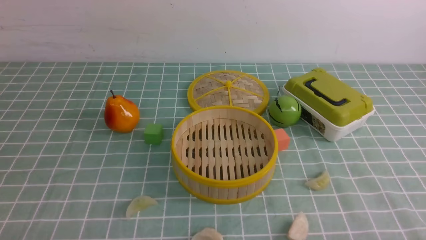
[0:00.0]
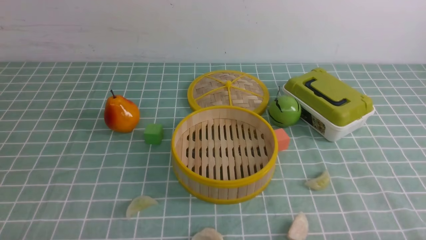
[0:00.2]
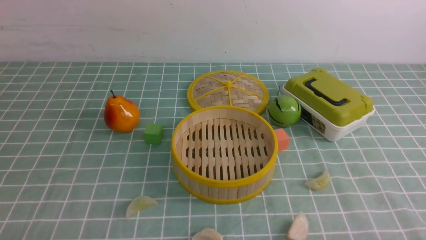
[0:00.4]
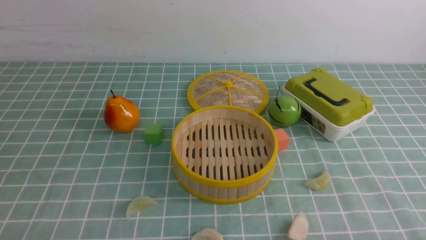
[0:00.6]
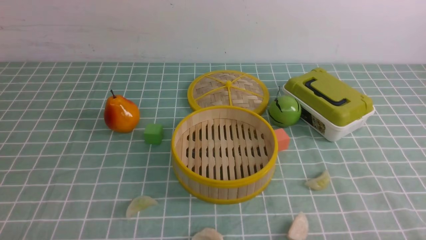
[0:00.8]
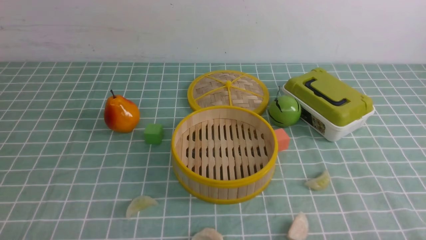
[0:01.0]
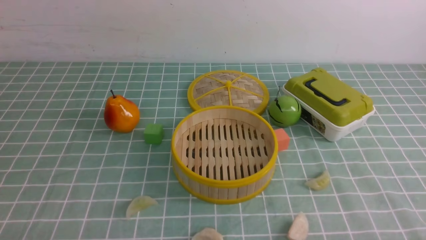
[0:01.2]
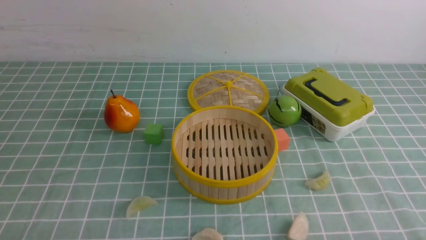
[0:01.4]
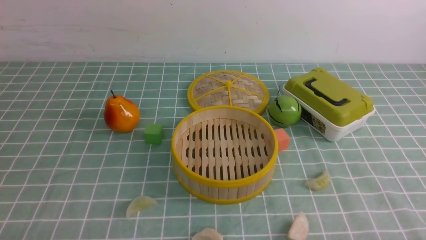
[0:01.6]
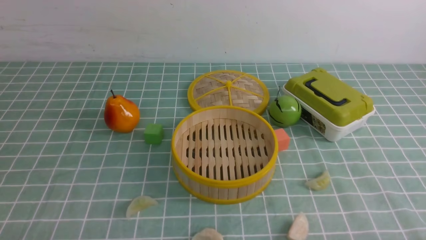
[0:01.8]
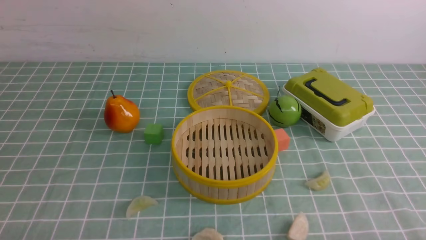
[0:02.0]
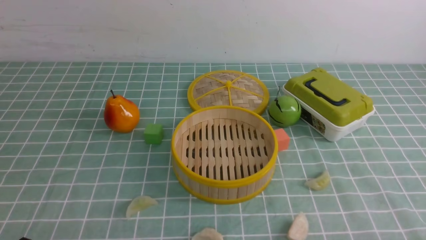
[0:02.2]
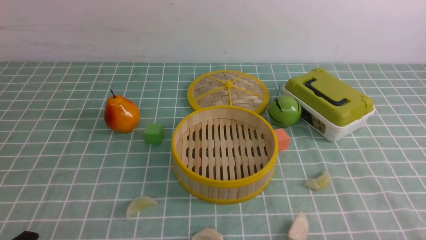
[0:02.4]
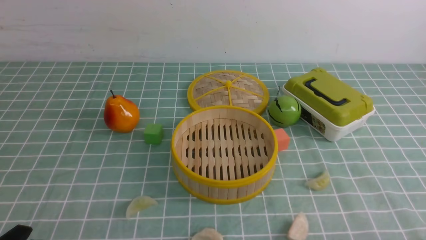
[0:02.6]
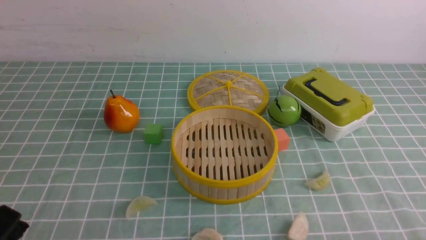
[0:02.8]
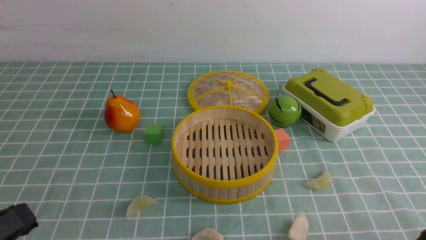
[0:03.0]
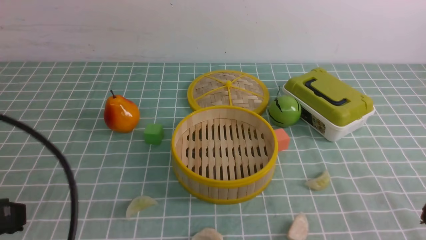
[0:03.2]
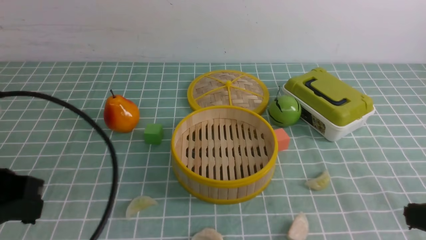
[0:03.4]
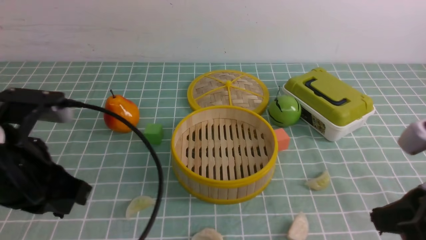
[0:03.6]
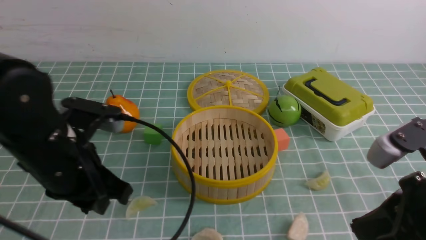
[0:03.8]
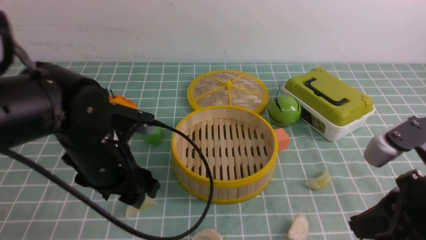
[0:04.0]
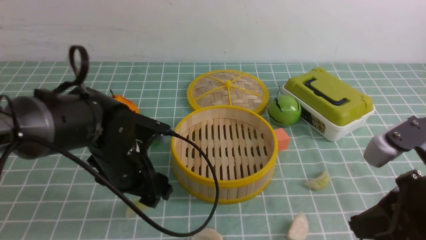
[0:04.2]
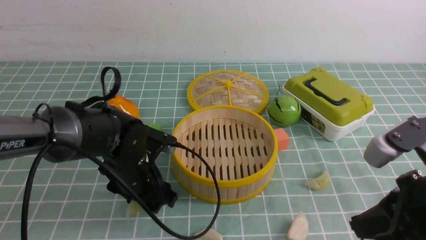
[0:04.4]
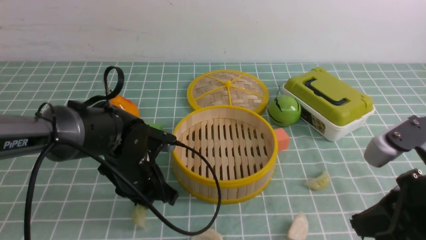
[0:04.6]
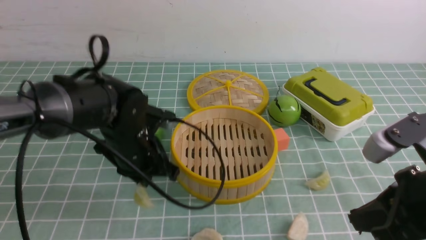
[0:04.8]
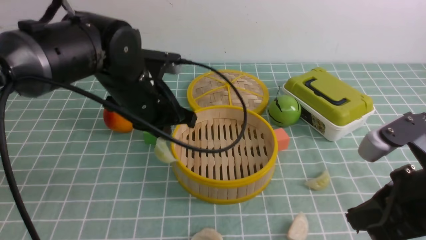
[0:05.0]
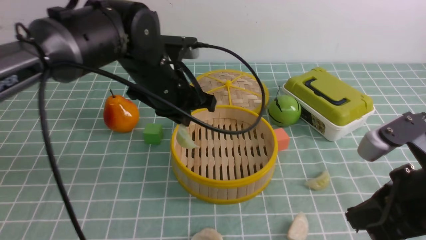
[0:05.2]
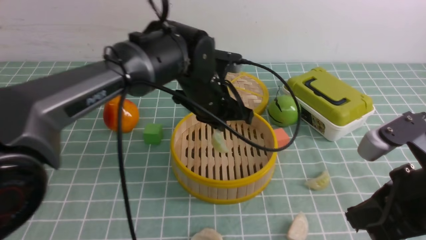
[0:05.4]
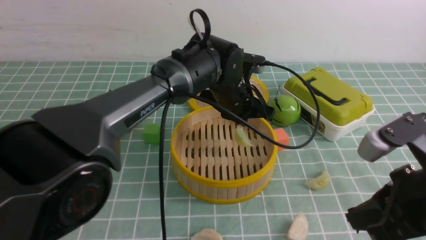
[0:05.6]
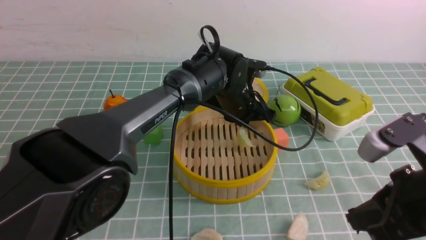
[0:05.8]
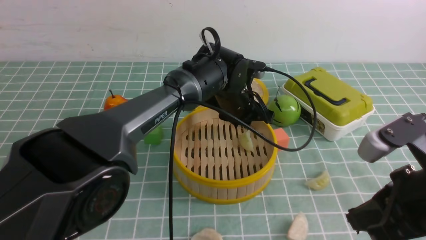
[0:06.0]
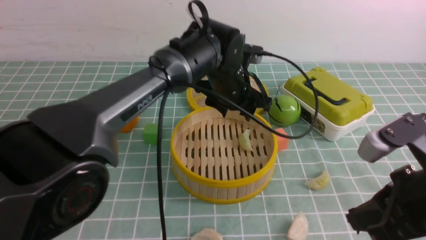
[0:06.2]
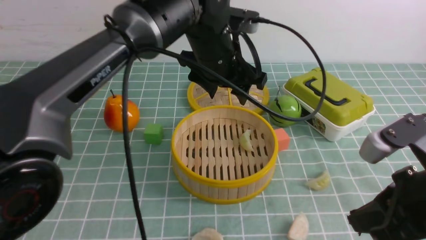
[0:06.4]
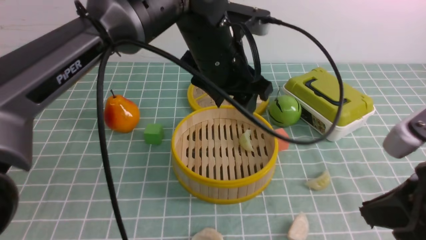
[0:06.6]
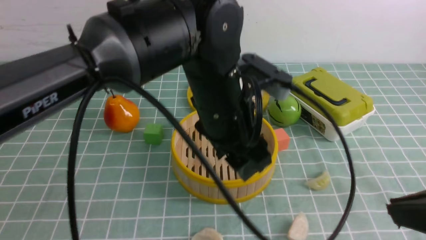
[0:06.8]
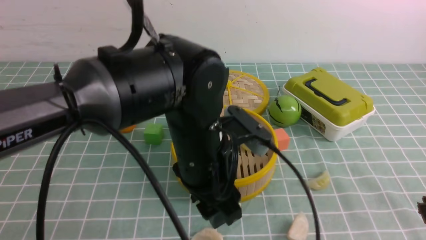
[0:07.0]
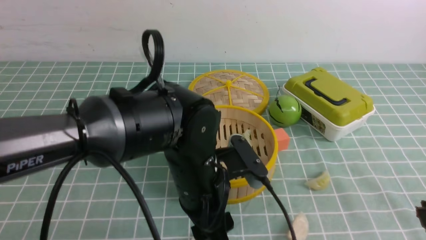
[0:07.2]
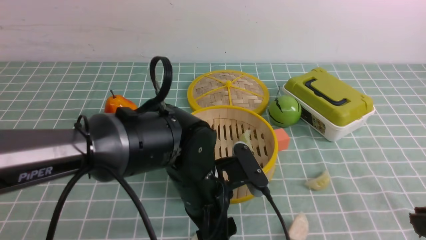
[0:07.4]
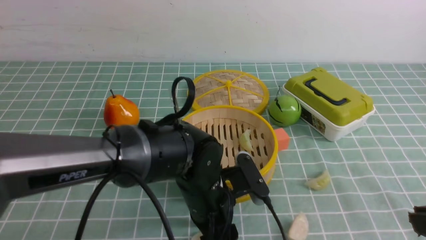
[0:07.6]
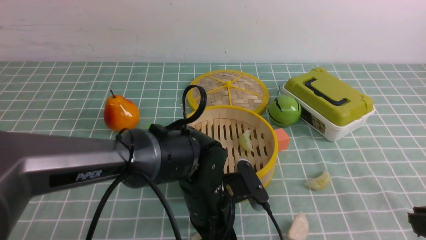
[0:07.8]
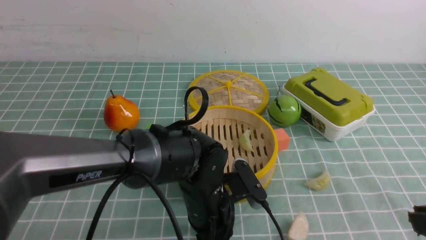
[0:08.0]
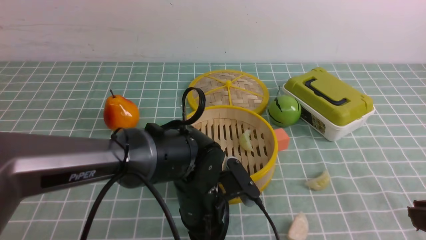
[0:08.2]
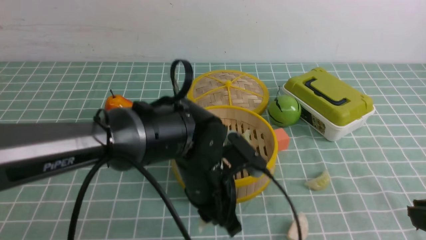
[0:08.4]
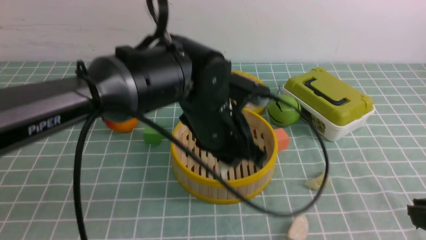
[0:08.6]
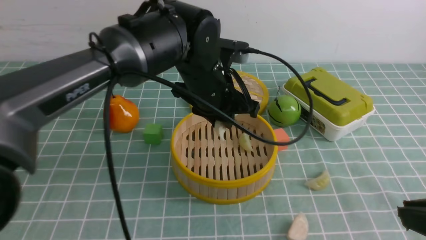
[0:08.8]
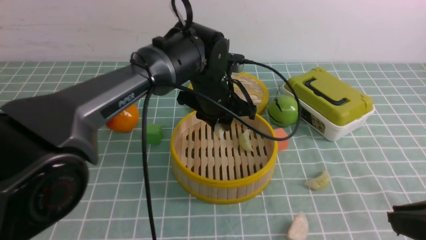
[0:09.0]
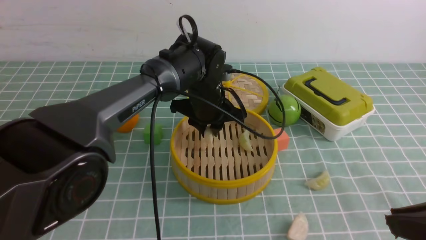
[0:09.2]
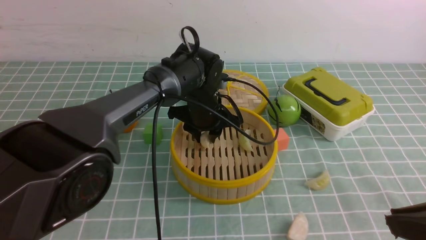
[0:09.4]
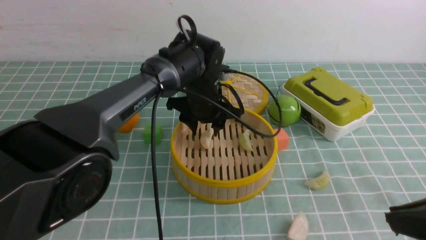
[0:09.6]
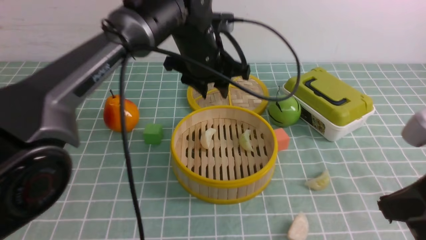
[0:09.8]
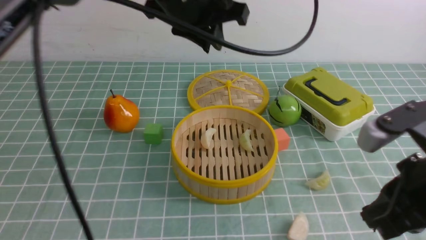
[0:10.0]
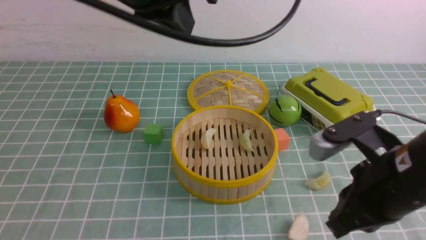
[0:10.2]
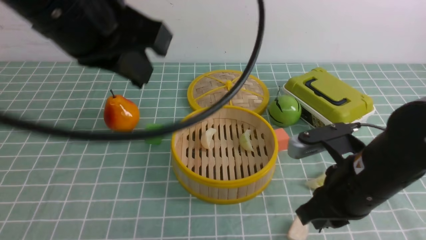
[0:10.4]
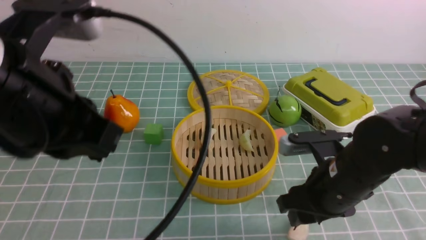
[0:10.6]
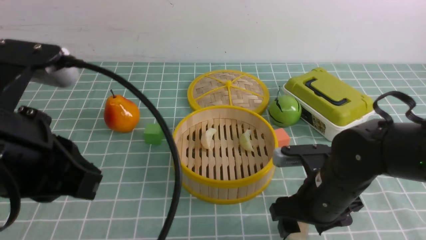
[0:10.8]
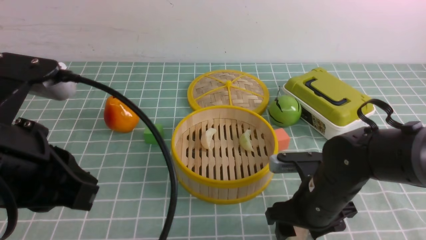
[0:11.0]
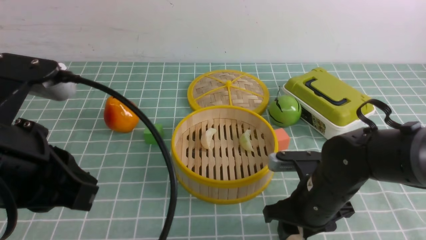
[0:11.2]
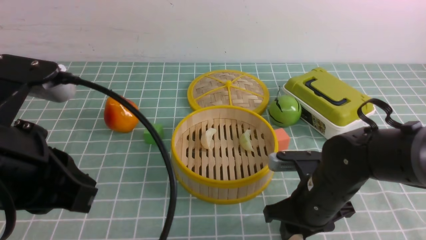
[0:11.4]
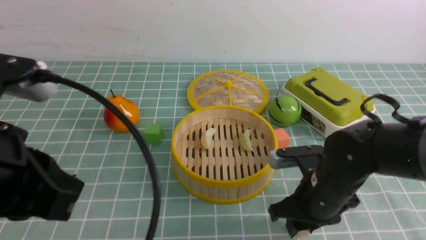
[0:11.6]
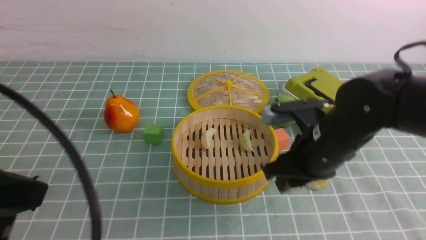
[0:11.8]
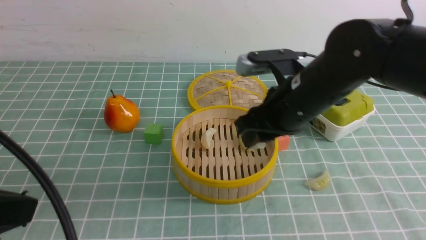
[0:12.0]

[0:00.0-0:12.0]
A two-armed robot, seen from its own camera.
Task of the whole recording: put the dumplings into the steamer on the table with the blue tablecloth.
Step, 0:00.0 to 0:04.4: use the left arm to grab a dumpling.
Step, 0:04.6 to 0:06.2: use the left arm to put the dumpling into the steamer.
Step, 0:06.4 to 0:08.0: use the left arm to grab a dumpling.
Step, 0:08.4 to 0:09.6: use the left arm to put the dumpling into the steamer.
Step, 0:09.8 to 0:11.2: use the right arm to grab a dumpling.
0:00.0 to 0:01.6: Both grippers stay about where they are.
0:01.6 to 0:03.0: The left gripper heads upward, covering approximately 15 cm, and closes its fingers.
0:03.0 to 0:04.4: The right gripper shifts approximately 15 cm forward, upward and to the left; the left gripper moves forward, downward and to the right, some 30 cm, and opens its fingers.
0:04.4 to 0:06.0: The left gripper is displaced to the right, forward and upward by some 20 cm, and closes and opens again.
0:06.0 to 0:07.6: The left gripper moves backward, approximately 15 cm, and opens its fingers; the right gripper is displaced backward by about 10 cm.
0:07.6 to 0:09.0: The left gripper goes roughly 15 cm forward and upward, and closes up.
0:09.0 to 0:10.4: The right gripper heads forward, to the left and downward, covering about 15 cm, while the left gripper is displaced upward, backward and to the left by roughly 30 cm, and closes up.
0:10.4 to 0:12.0: The right gripper travels forward and to the left by some 10 cm, reaches approximately 10 cm downward, then returns, and opens, then closes again; the left gripper goes approximately 15 cm backward, to the left and downward.

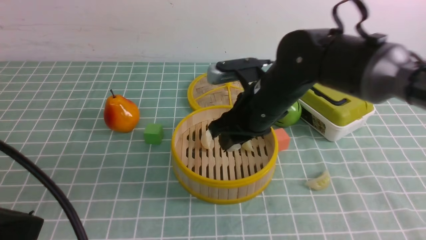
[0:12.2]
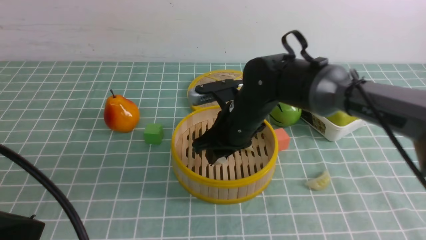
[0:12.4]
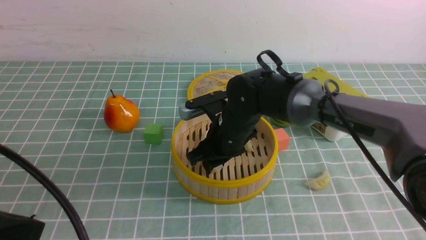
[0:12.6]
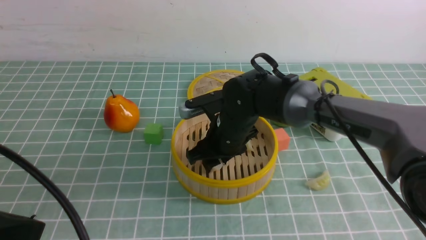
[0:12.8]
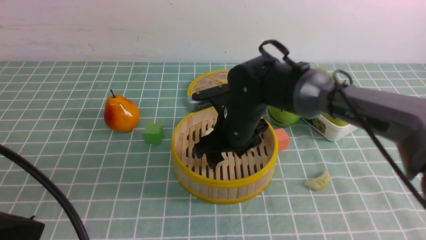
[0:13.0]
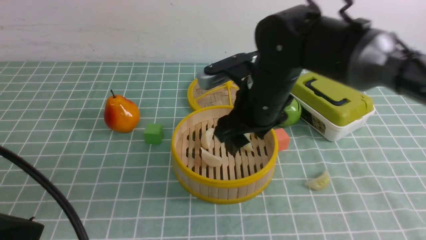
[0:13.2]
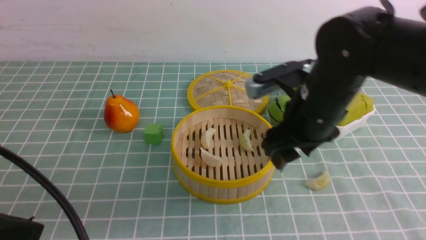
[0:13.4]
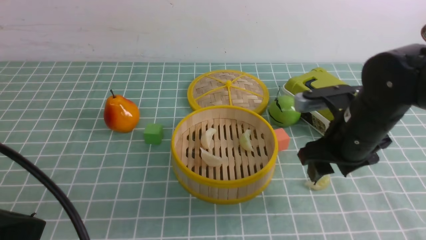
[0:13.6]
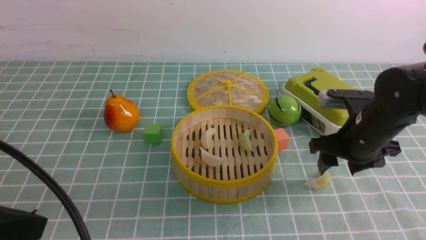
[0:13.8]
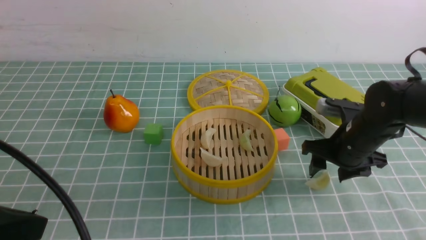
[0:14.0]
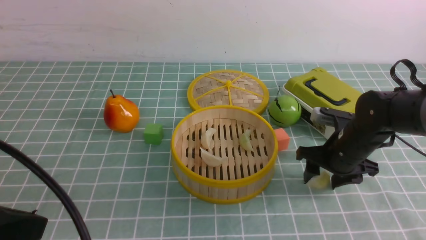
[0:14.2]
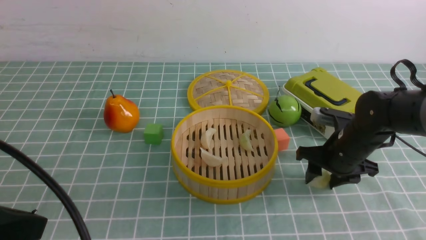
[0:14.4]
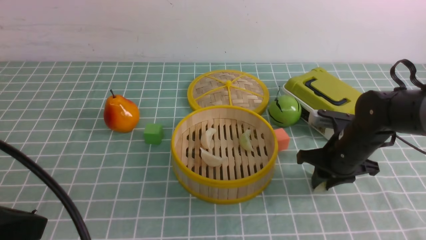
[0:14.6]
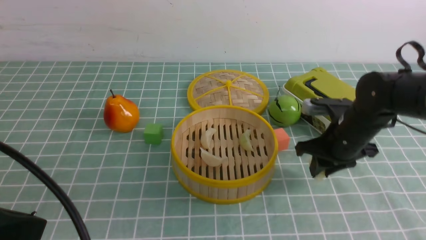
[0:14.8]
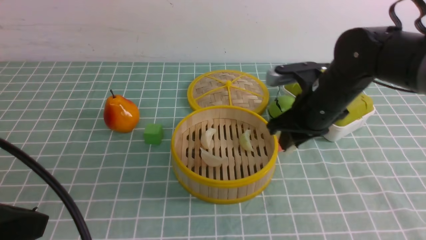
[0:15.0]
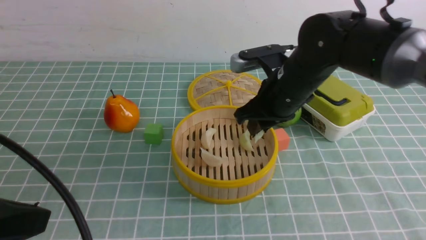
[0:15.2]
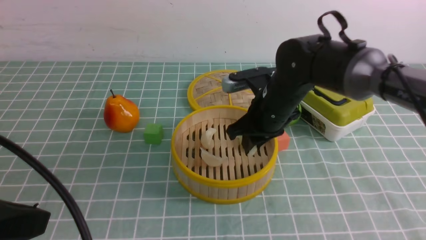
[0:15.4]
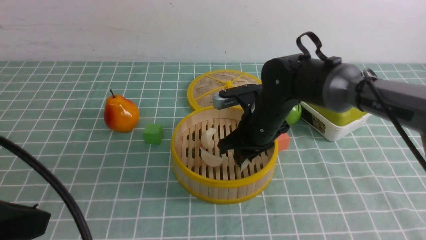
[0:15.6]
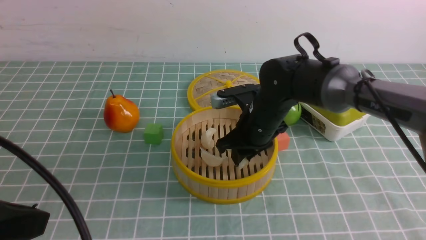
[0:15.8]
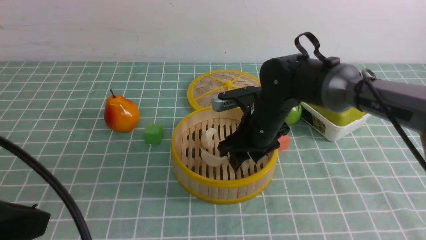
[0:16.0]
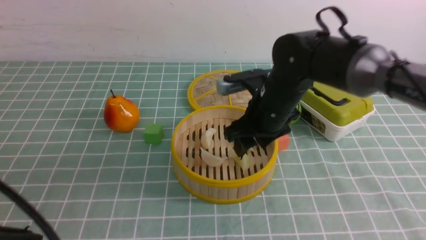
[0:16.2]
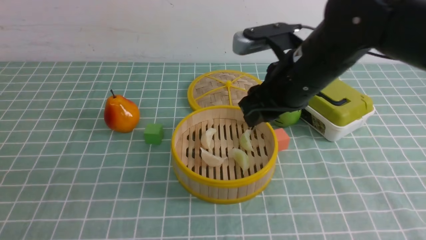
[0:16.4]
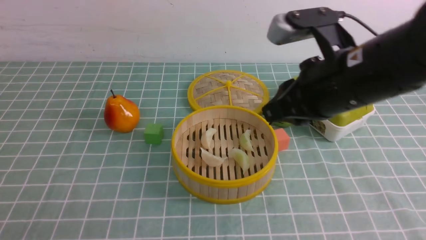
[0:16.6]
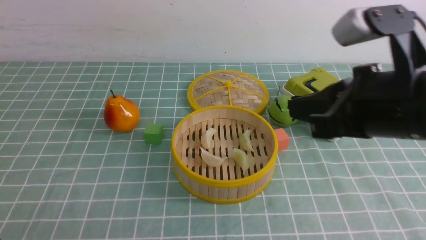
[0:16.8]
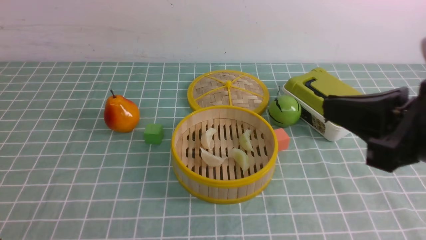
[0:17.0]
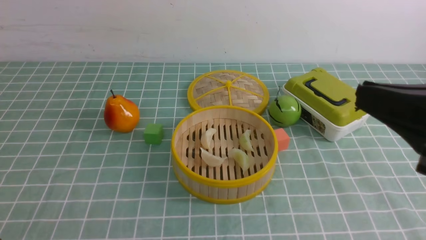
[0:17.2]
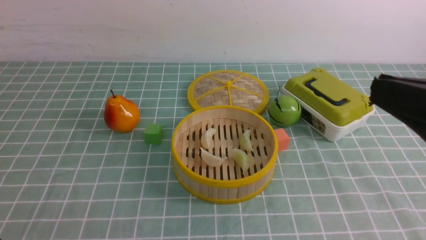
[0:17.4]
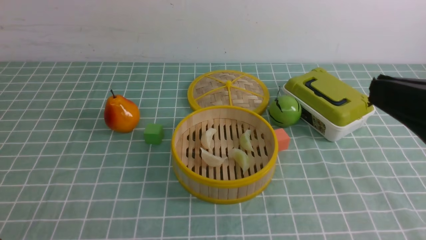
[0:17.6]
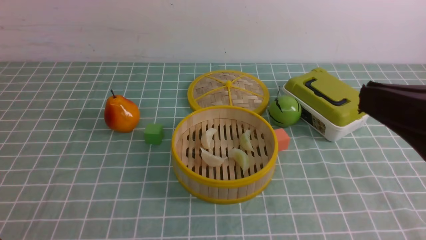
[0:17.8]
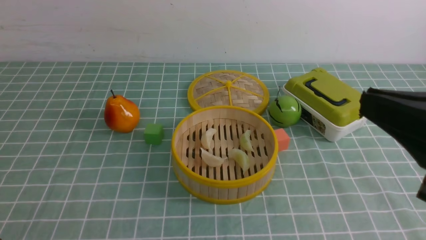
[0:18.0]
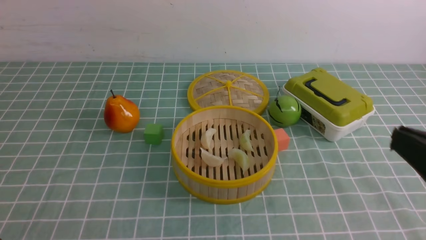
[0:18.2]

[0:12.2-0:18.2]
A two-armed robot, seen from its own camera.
Task of the whole recording: put the dumplings into the steamer on the table with the blue tablecloth.
Step, 0:12.2 to 0:13.0: use the right arm to put the dumpling into the steamer.
Step, 0:13.4 to 0:14.4: use the right arm to grab a dumpling.
Step, 0:14.6 to 0:16.2: use the right arm to put the dumpling into the steamer.
0:12.2 to 0:13.8: The right gripper heads to the right, covering approximately 15 cm, and opens up.
0:13.8 to 0:15.2: The right gripper goes approximately 10 cm to the left, and closes.
0:15.2 to 0:16.6: The left gripper heads downward and backward, covering about 10 cm. The right gripper heads backward and upward, covering approximately 15 cm, and opens and closes again.
0:16.6 to 0:18.2: The right gripper is displaced backward and to the right by some 20 cm.
